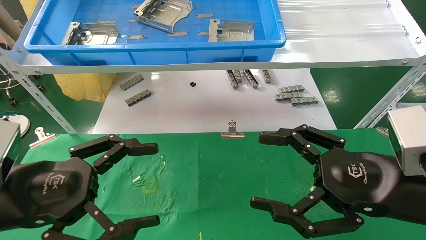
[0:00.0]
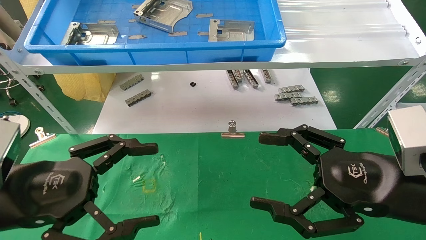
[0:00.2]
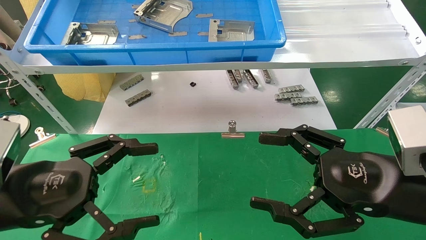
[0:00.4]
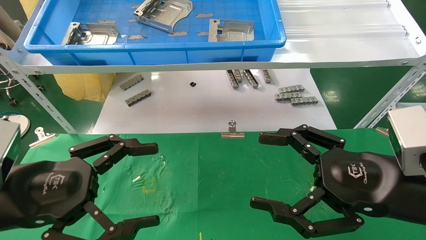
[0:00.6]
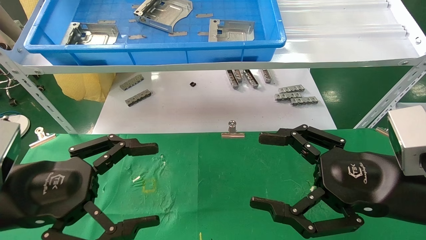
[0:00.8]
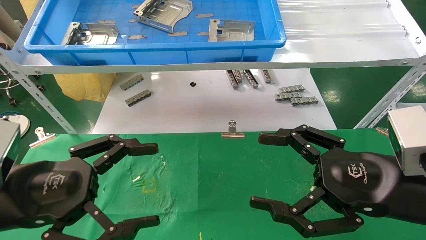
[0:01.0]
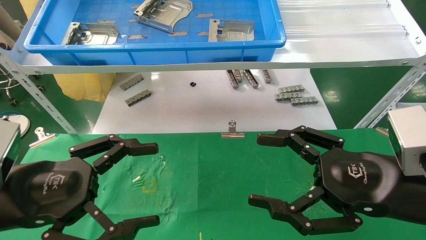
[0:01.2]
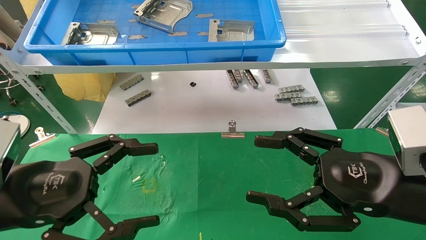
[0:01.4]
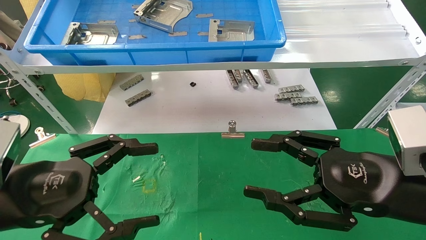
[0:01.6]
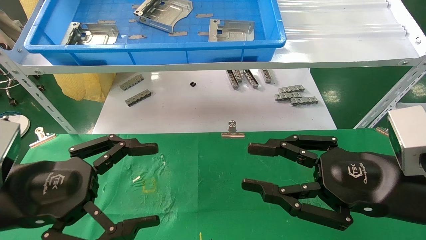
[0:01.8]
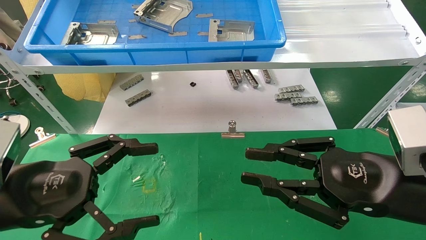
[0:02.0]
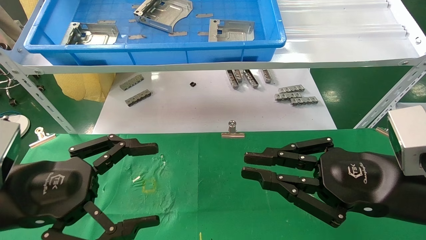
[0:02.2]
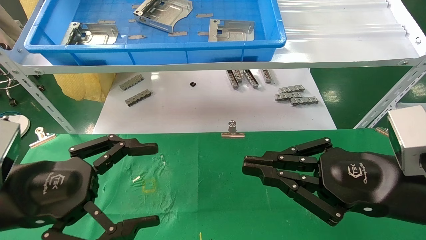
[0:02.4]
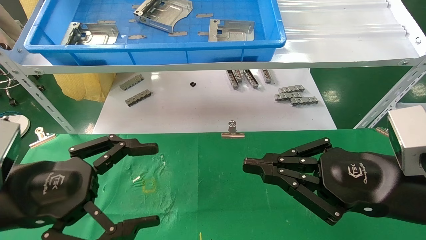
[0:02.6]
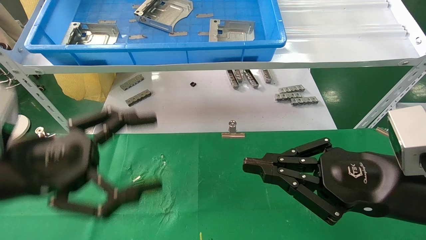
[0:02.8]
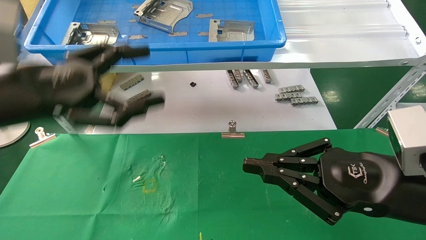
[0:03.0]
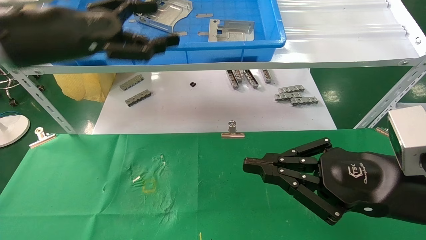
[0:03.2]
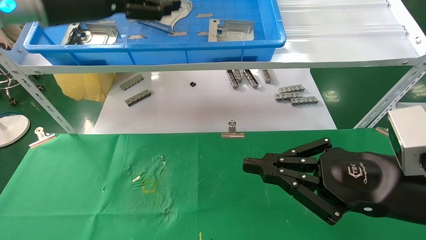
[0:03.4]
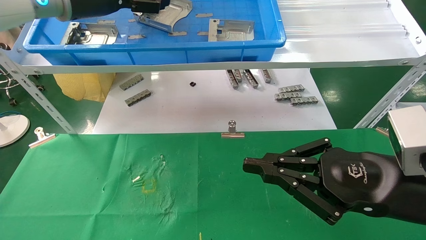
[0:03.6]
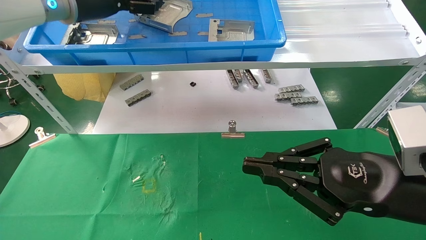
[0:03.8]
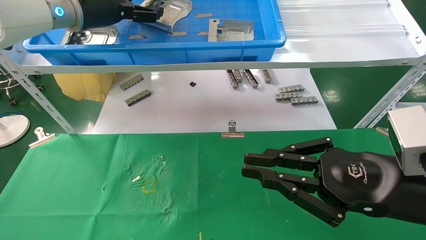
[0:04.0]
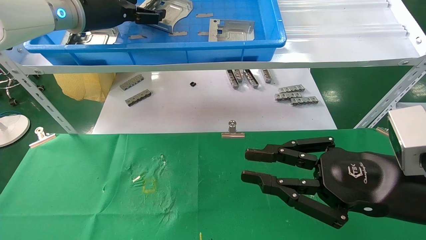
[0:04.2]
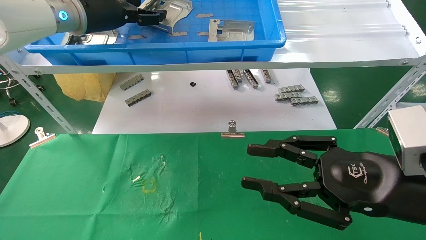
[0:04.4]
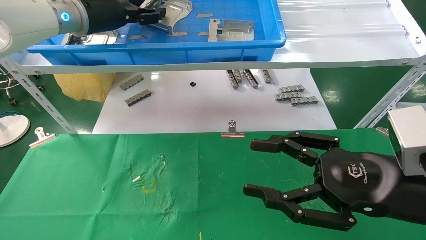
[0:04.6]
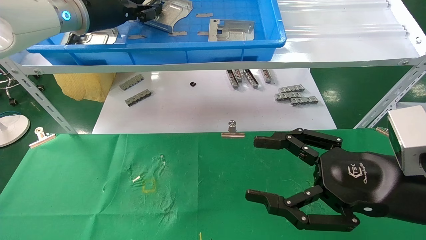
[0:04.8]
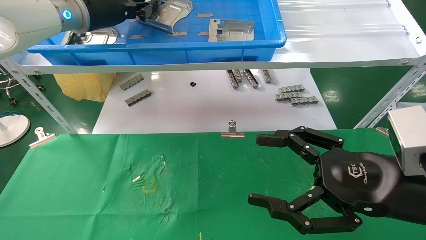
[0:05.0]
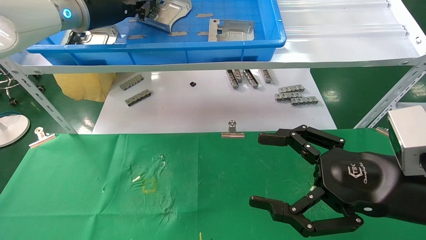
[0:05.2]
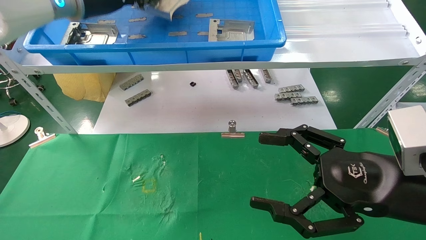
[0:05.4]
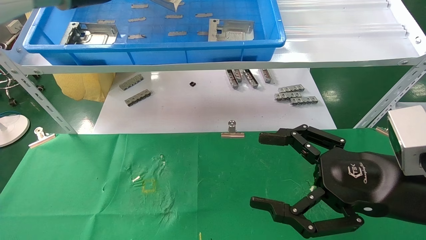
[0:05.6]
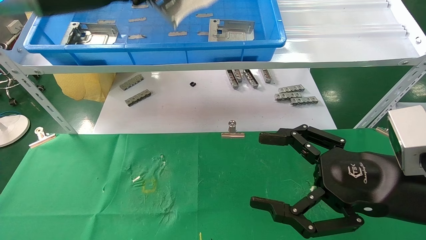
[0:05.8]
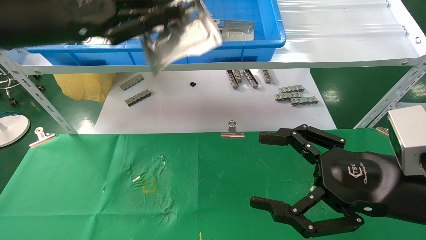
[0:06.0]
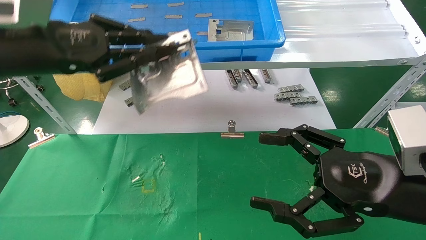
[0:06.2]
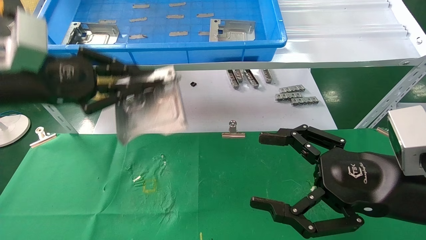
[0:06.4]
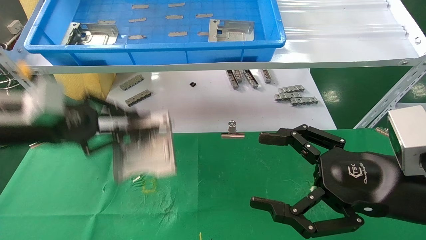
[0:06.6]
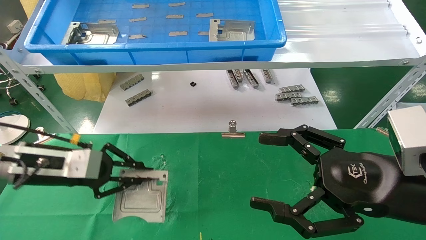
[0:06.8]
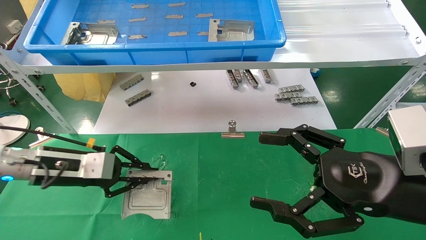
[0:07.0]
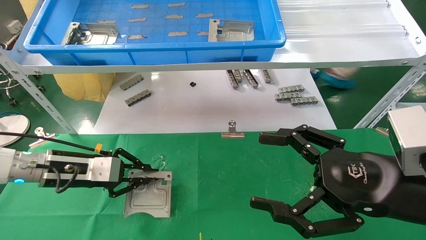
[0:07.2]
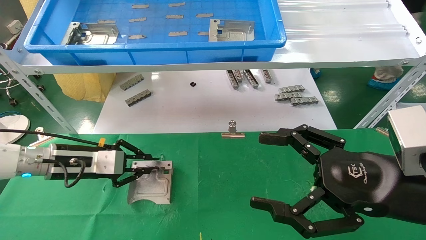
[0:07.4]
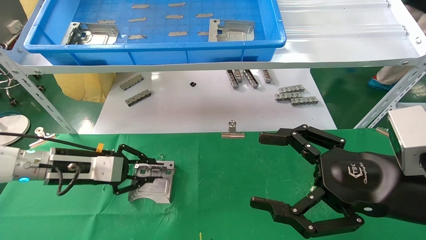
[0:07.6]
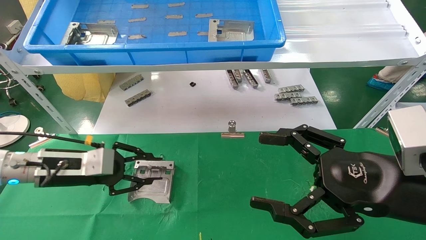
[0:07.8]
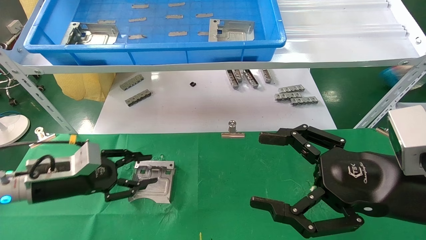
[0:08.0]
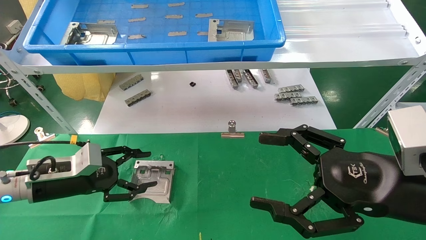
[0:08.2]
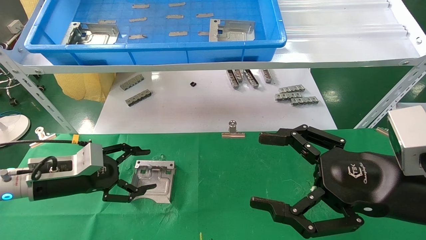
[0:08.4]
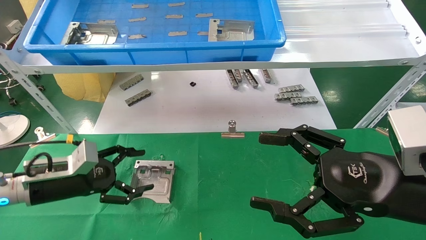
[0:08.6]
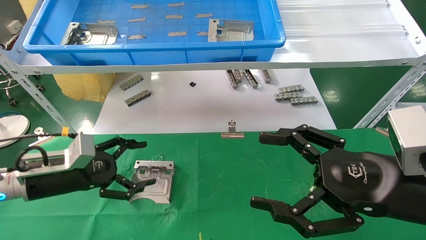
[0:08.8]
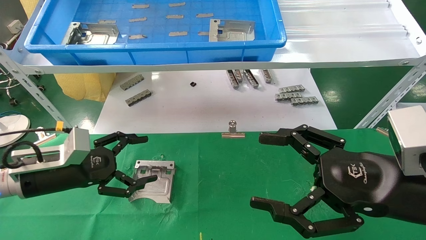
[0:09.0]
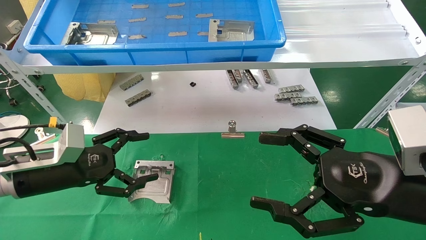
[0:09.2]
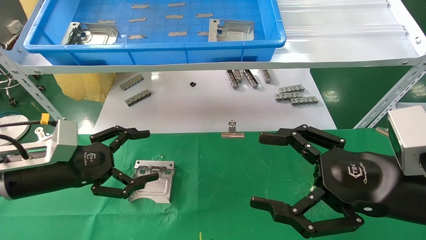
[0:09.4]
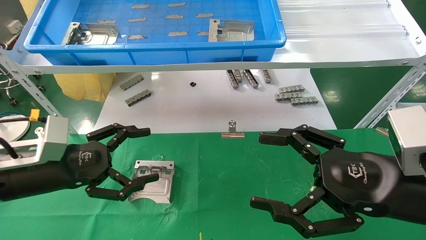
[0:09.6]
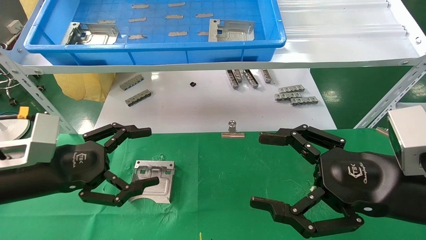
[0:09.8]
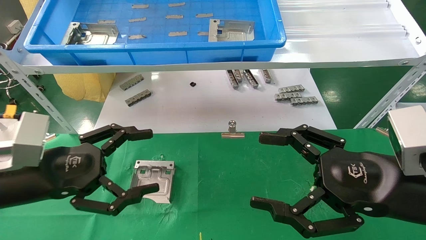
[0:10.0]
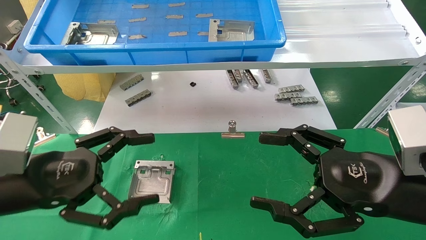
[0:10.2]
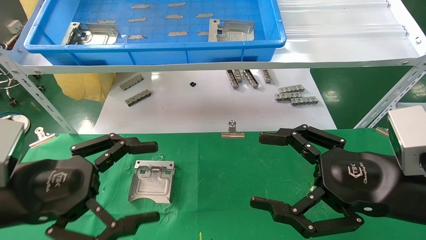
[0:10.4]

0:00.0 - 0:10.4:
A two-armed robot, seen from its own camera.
Task of the whole recording: use the mechanical arm to pick up the parts and place them on the table.
Step, 0:02.8 - 0:05.0: Pick up the hard drive bracket from the feeding area.
Step, 0:05.2 - 0:07.8: Place the hard drive bracket into the box.
0:00.0 - 0:01.4: Both grippers stay about where they are.
0:01.4 - 0:03.0: The right gripper closes up. Meanwhile the left gripper shifts about 15 cm upward and forward.
0:03.0 - 0:04.4: The left gripper is displaced forward and upward by approximately 20 cm.
0:04.4 - 0:06.0: The left gripper travels backward by about 10 cm, and closes its fingers. The right gripper opens up.
0:06.0 - 0:07.4: The left gripper travels downward by roughly 25 cm.
0:07.4 - 0:09.0: The left gripper opens.
0:09.0 - 0:10.4: The left gripper moves backward and upward, approximately 15 cm.

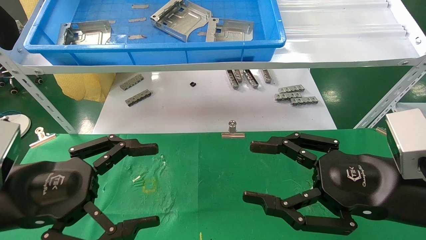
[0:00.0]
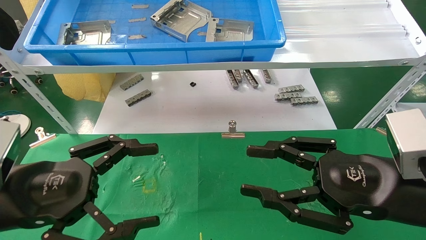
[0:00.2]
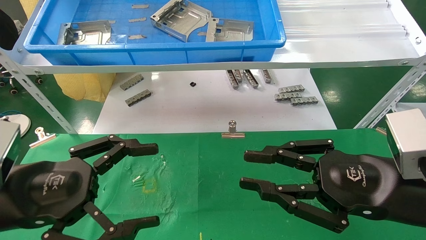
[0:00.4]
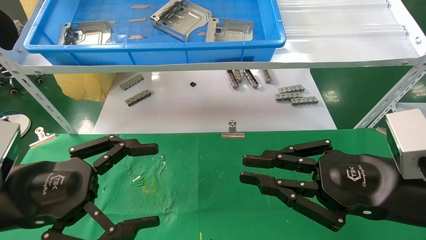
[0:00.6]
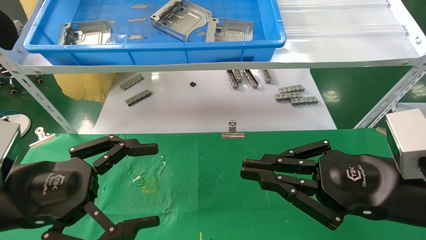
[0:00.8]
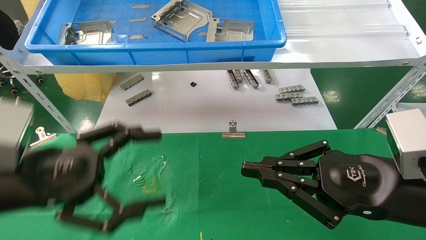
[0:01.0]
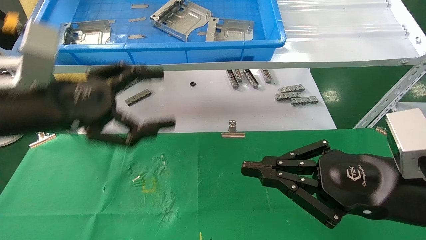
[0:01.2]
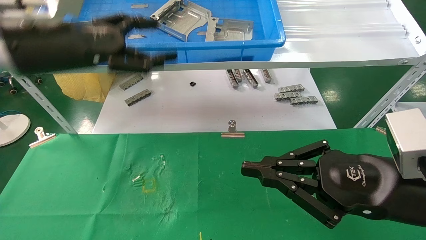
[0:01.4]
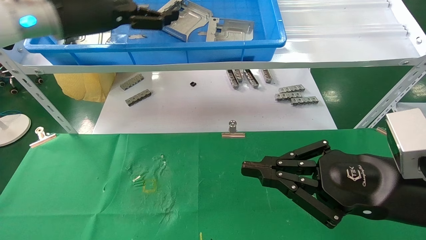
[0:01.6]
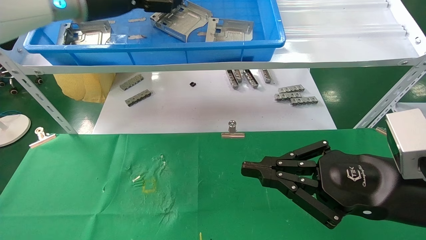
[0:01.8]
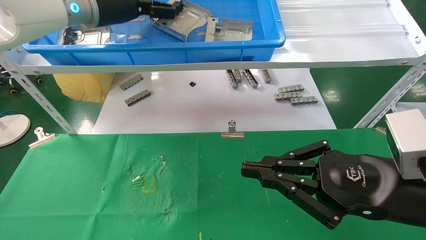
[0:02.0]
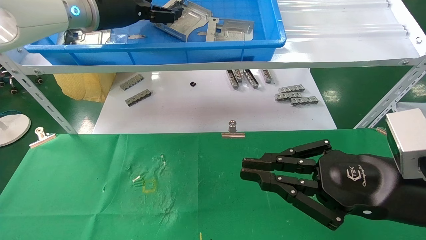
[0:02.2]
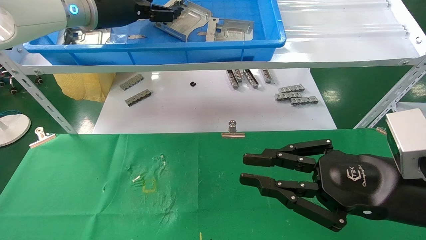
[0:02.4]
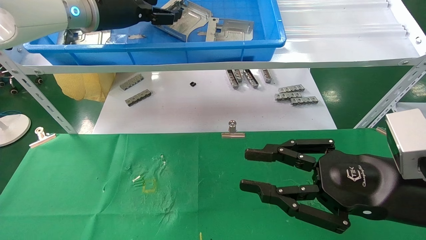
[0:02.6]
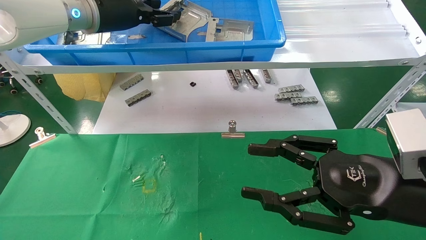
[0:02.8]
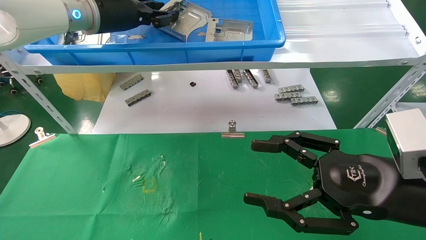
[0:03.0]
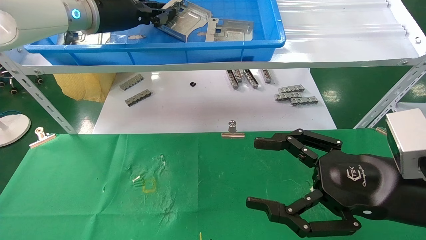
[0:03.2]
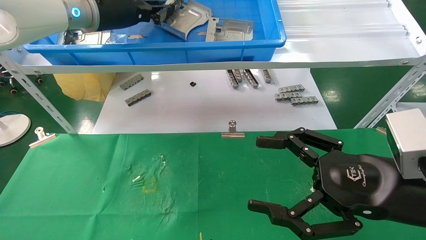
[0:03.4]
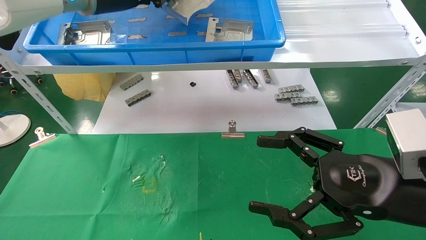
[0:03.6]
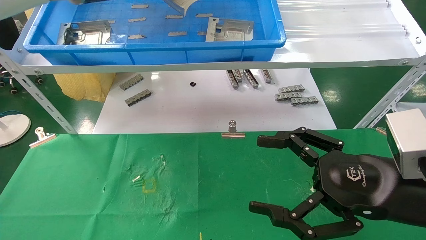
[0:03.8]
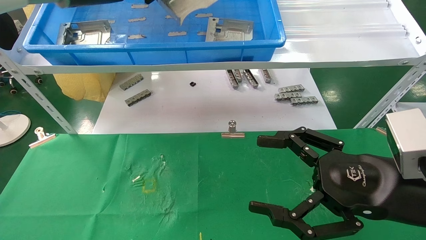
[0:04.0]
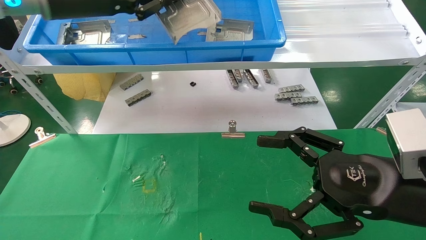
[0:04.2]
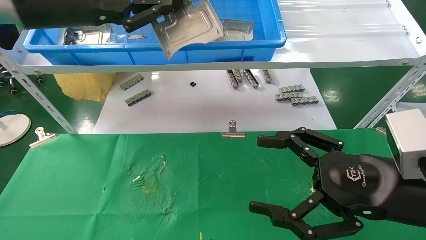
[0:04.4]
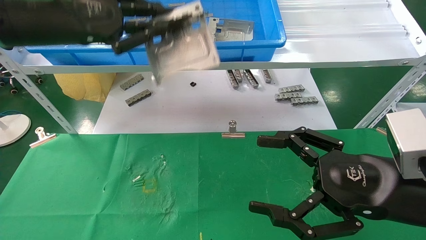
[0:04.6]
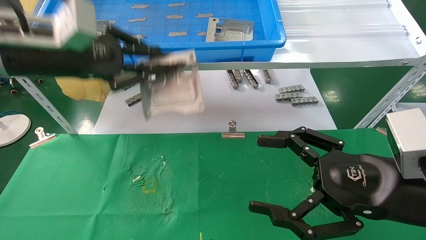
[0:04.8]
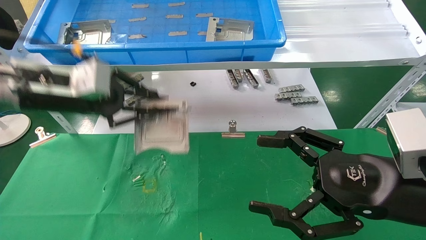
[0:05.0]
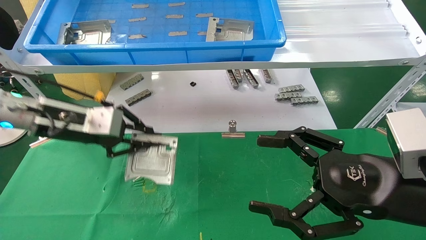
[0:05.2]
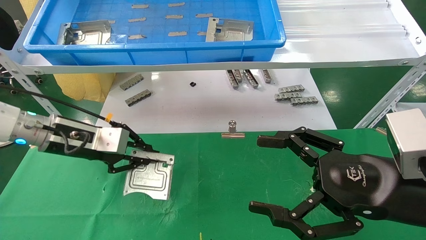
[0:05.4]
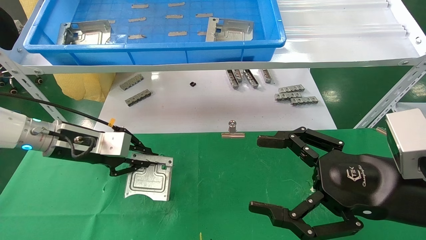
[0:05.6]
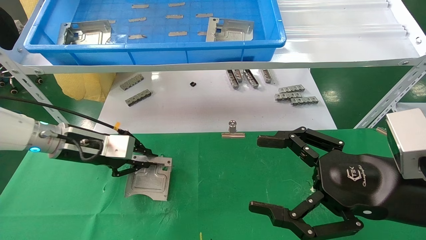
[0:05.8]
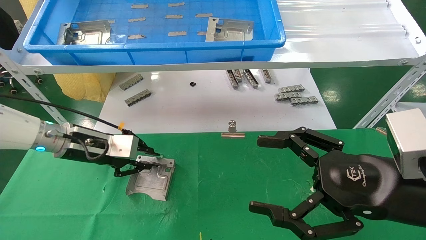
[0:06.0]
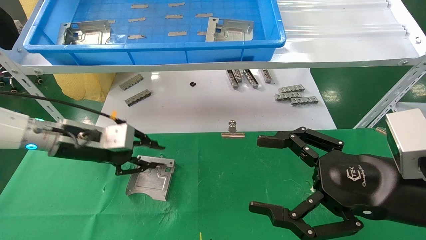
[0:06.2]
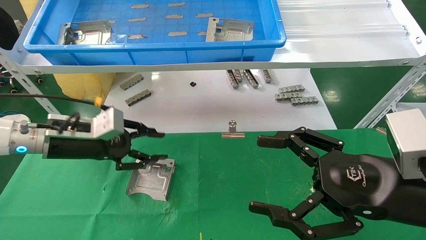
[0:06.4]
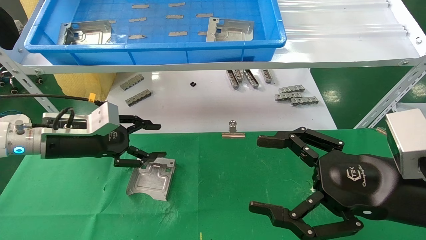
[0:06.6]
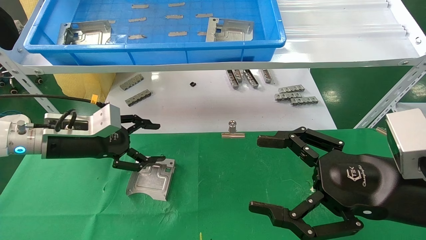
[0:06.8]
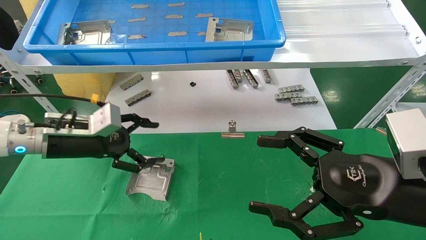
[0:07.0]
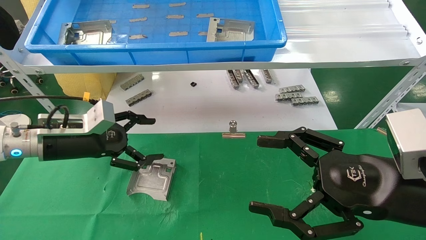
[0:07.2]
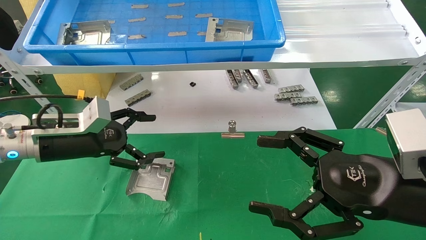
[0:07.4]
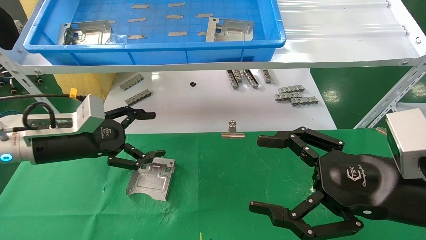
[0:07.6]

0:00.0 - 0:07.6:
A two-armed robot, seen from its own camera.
Task of the whole recording: use the mechanical arm to pick up the parts and place them on the table.
Step, 0:01.2 - 0:03.2: Pick up the hard drive bracket from the feeding area.
Step, 0:03.4 - 0:06.4: Place the hard drive bracket into the box.
0:00.0 - 0:01.6: The right gripper closes up. The left gripper moves upward and forward, about 30 cm.
0:01.6 - 0:03.0: The right gripper opens up; the left gripper shifts by roughly 5 cm, and closes up.
0:03.0 - 0:04.6: The right gripper opens up. Meanwhile the left gripper moves backward and to the left, roughly 10 cm, and closes its fingers.
0:04.6 - 0:06.0: The left gripper is displaced downward by some 20 cm.
0:06.0 - 0:07.6: The left gripper opens up.
